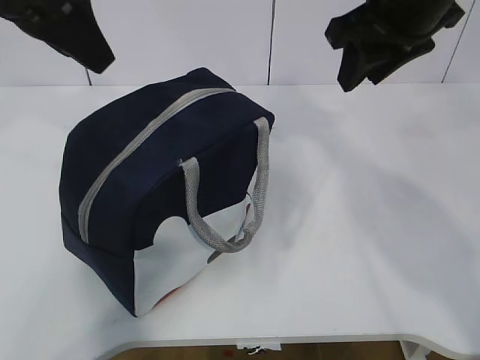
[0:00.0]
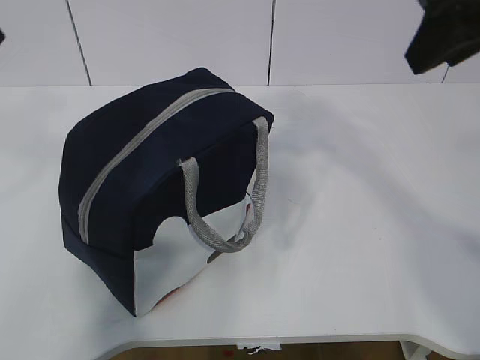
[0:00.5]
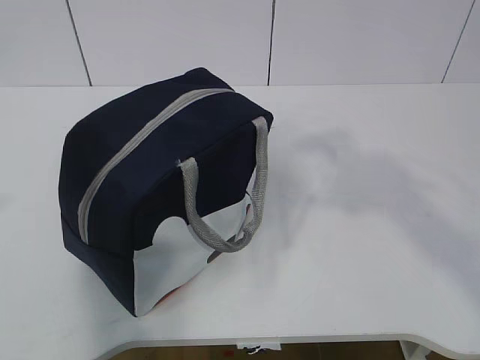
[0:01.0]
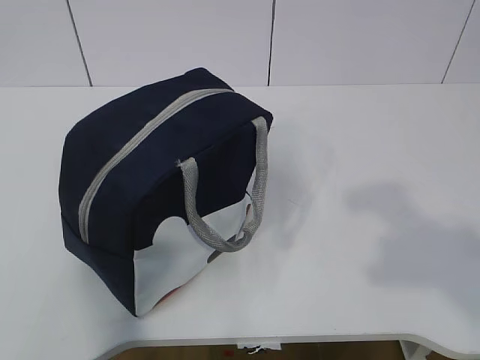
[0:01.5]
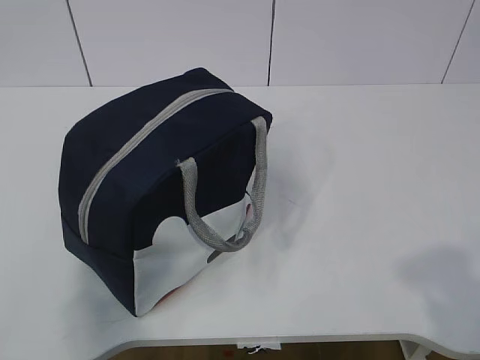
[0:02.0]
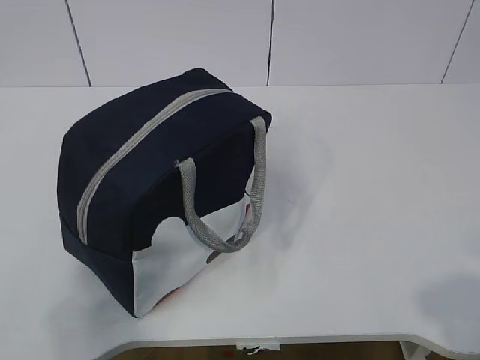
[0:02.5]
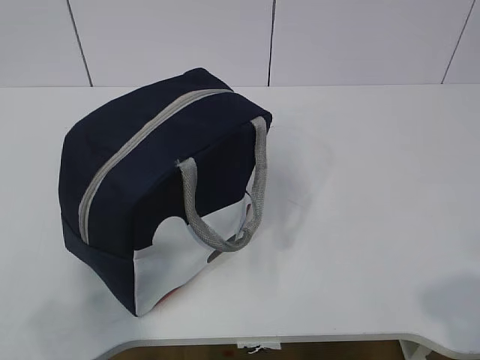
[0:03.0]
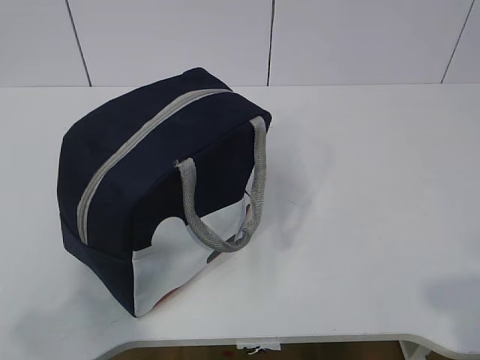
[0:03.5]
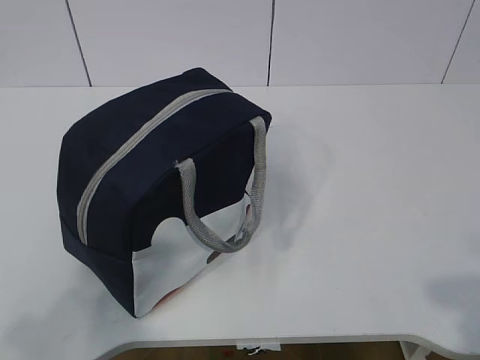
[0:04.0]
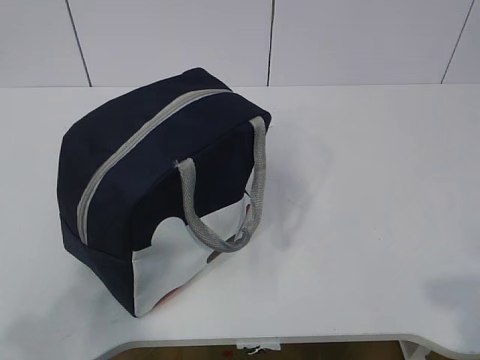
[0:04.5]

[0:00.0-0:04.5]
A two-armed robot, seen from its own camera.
0:00.0 to 0:02.0: Both grippers travel together backward, about 35 cm.

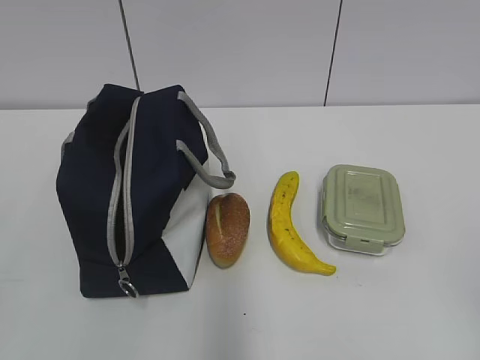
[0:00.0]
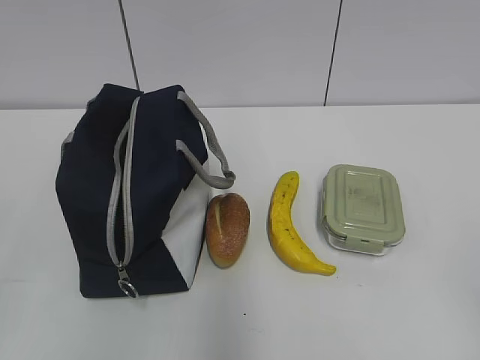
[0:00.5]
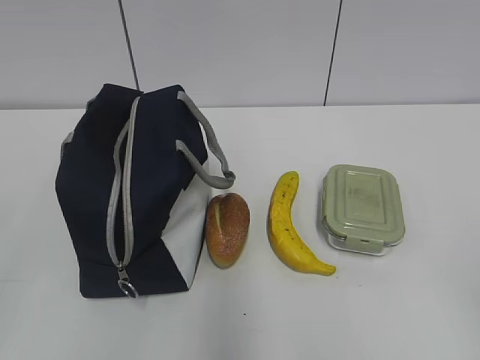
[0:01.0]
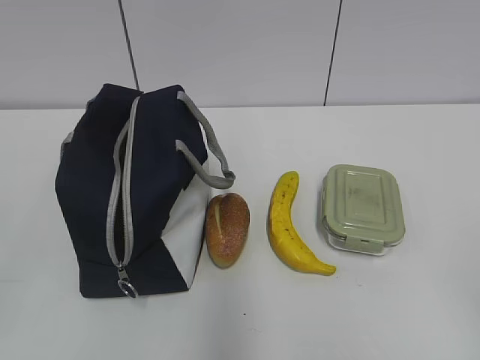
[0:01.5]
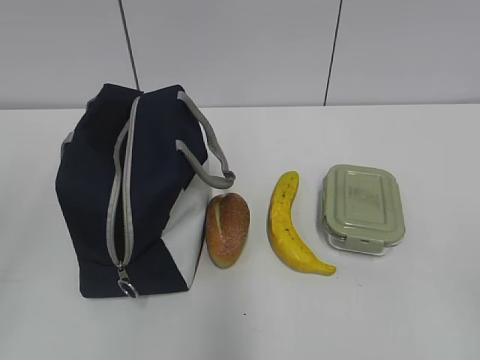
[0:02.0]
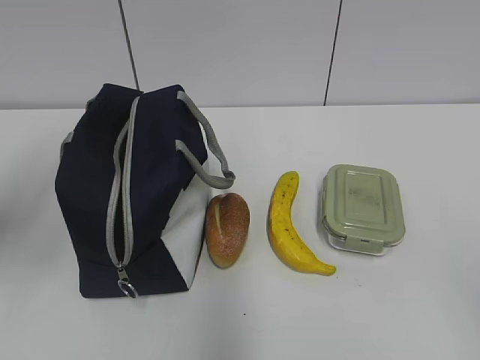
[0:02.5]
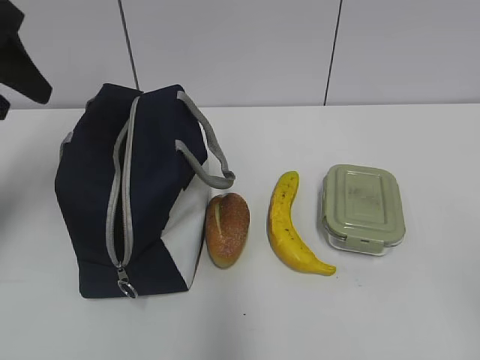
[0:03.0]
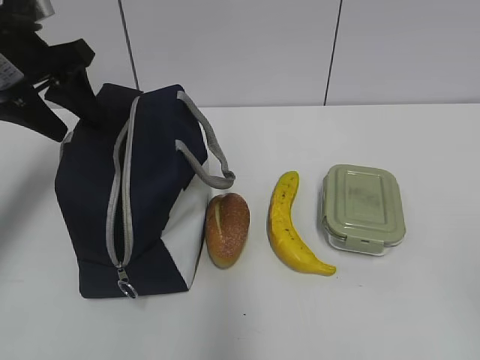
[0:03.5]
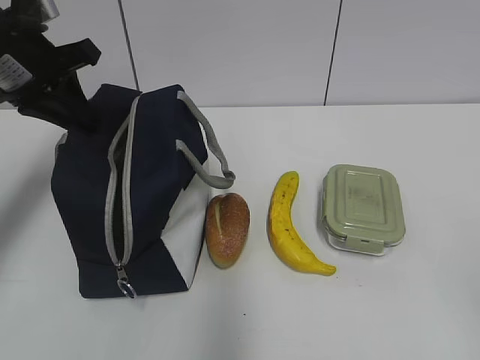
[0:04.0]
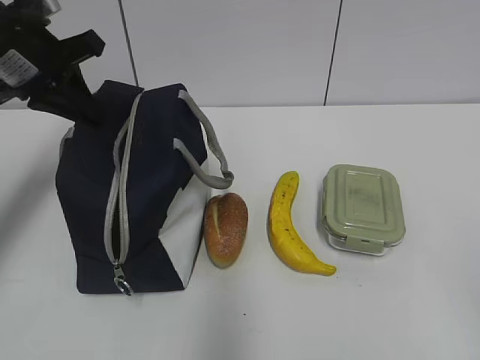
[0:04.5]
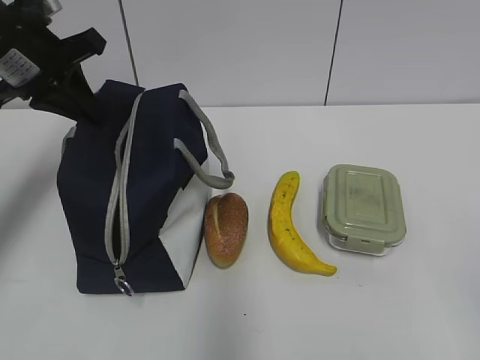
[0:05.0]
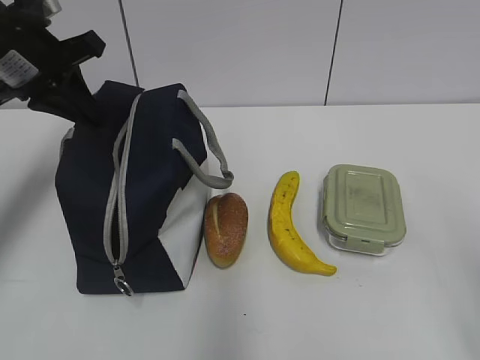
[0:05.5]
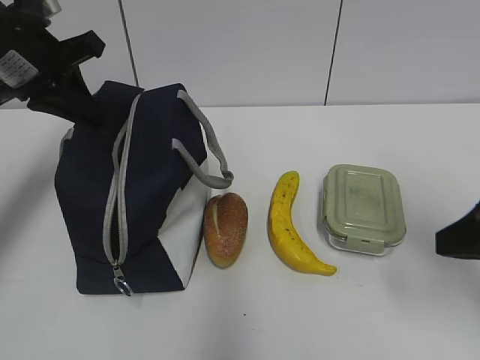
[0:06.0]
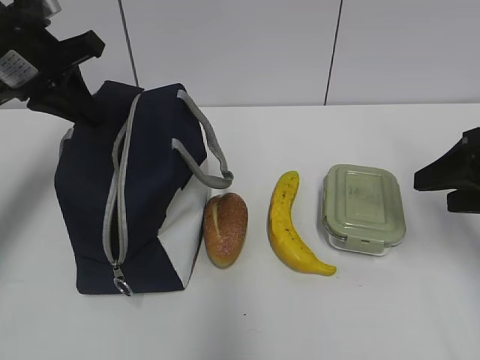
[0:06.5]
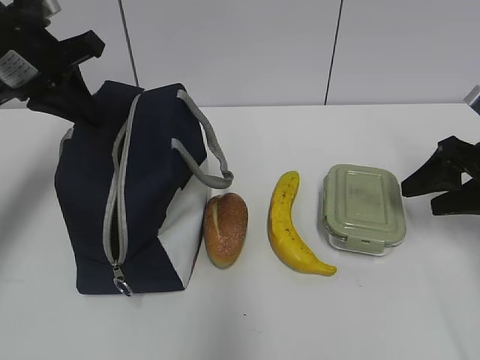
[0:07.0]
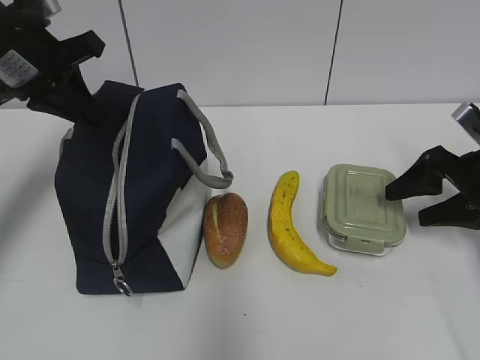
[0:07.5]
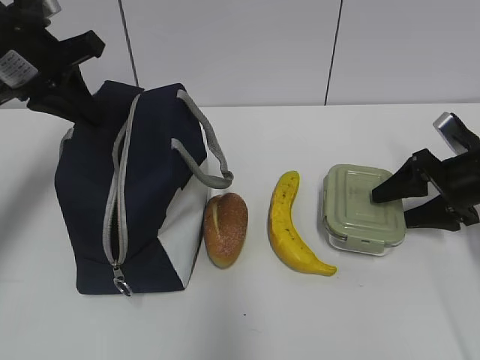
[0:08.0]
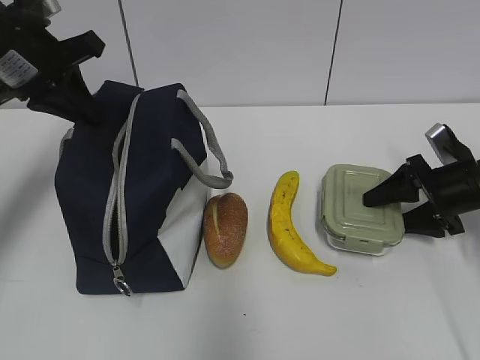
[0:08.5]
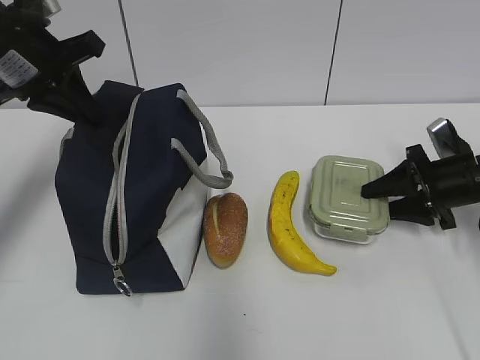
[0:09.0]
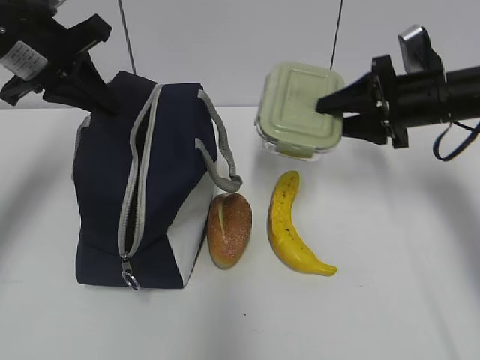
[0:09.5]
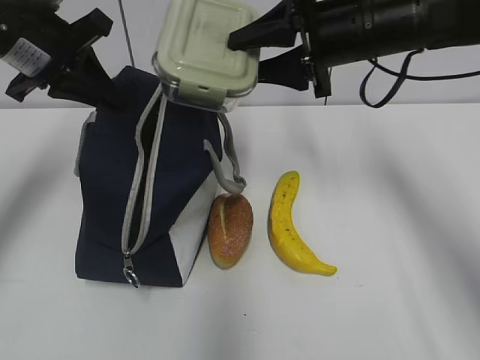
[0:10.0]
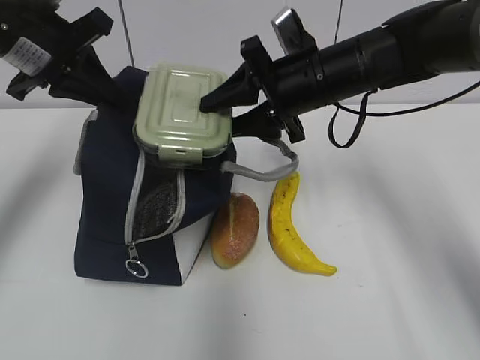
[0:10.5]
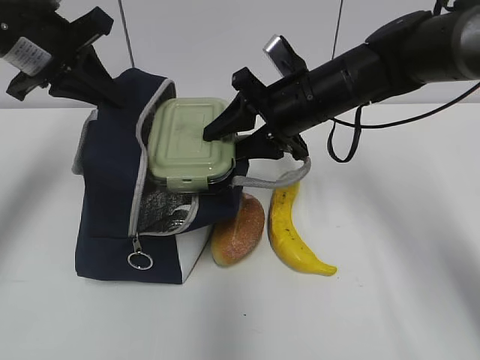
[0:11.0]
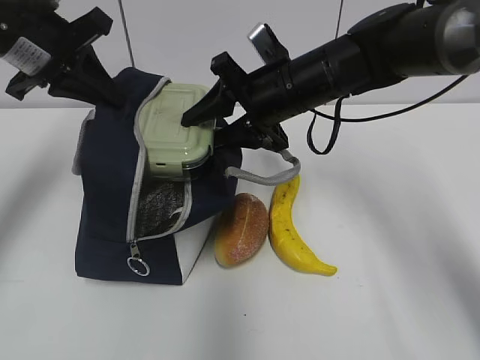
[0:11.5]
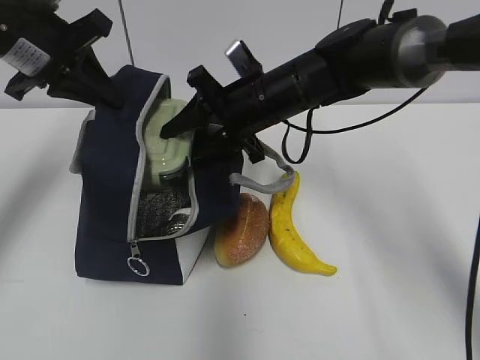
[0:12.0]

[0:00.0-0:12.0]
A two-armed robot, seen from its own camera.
0:02.0 to 0:04.0: The left gripper goes roughly 30 cm forward, and closes.
0:04.0 to 0:06.0: The right gripper moves forward, some 20 cm.
0:06.0 to 0:08.0: The right gripper is displaced forward and downward by some 20 cm.
0:08.0 to 0:10.0: The right gripper shifts some 25 cm to the left and upward, and closes its fingers.
0:10.0 to 0:12.0: The right gripper heads to the left and downward, covering about 10 cm.

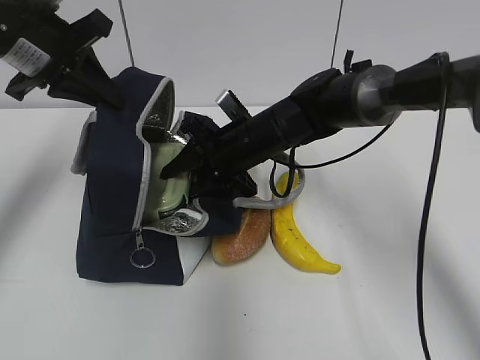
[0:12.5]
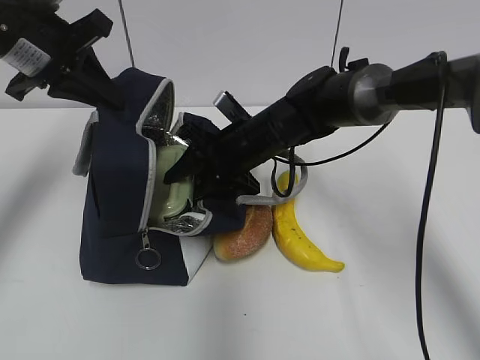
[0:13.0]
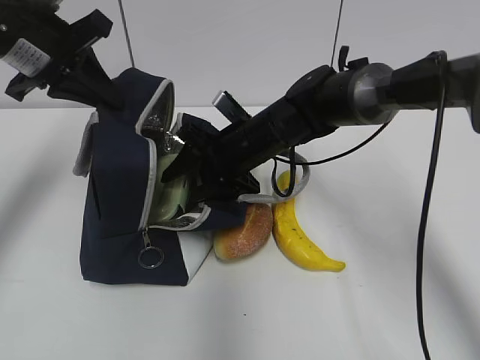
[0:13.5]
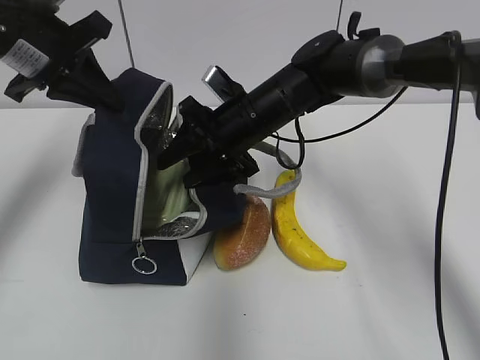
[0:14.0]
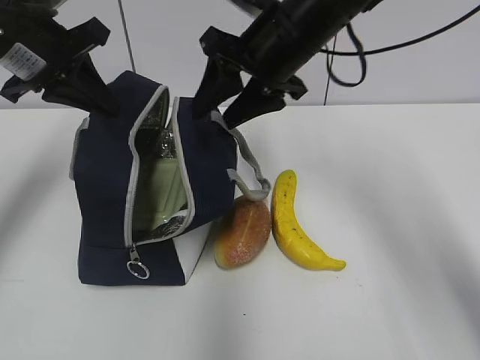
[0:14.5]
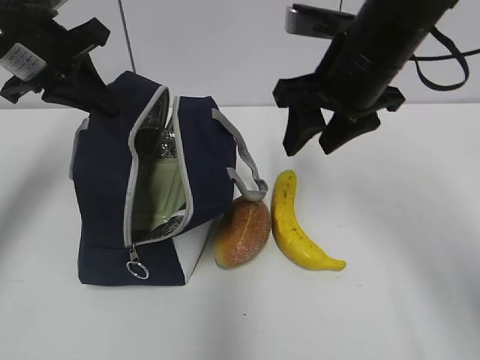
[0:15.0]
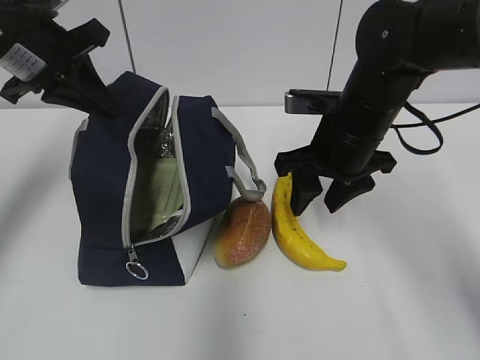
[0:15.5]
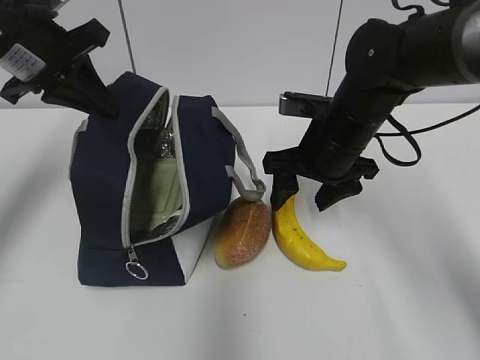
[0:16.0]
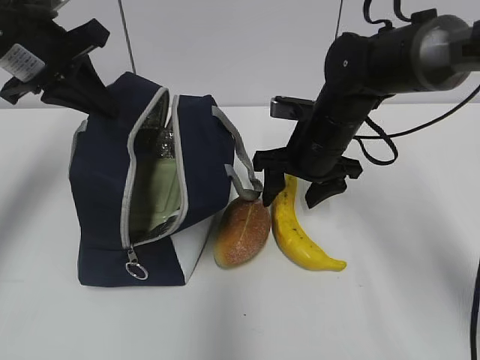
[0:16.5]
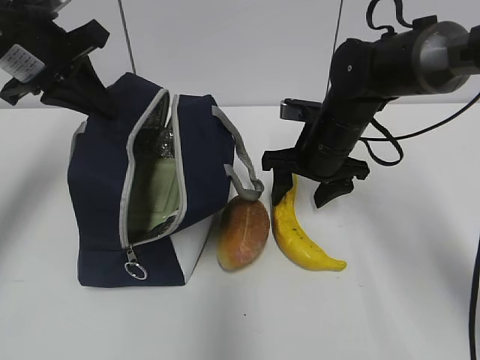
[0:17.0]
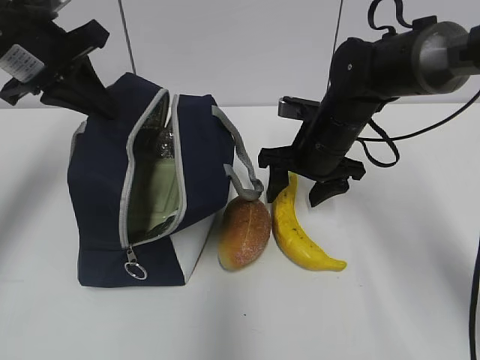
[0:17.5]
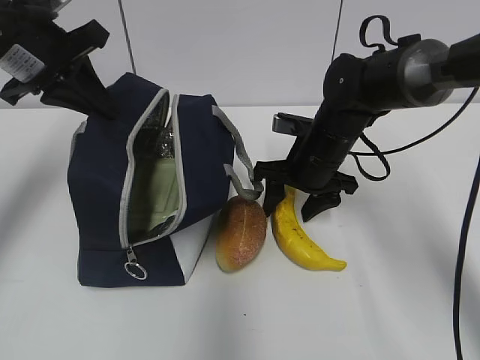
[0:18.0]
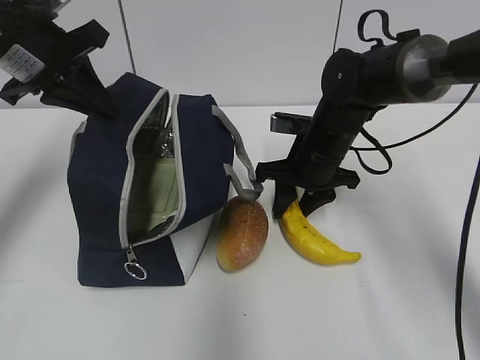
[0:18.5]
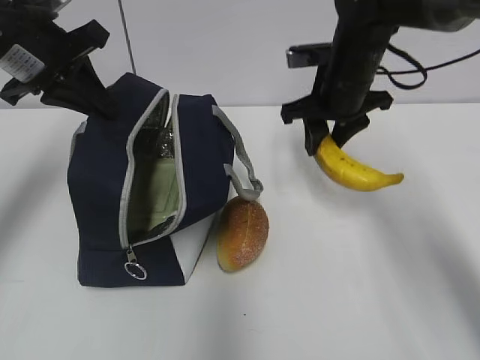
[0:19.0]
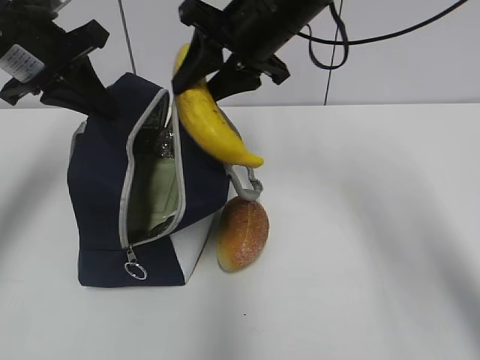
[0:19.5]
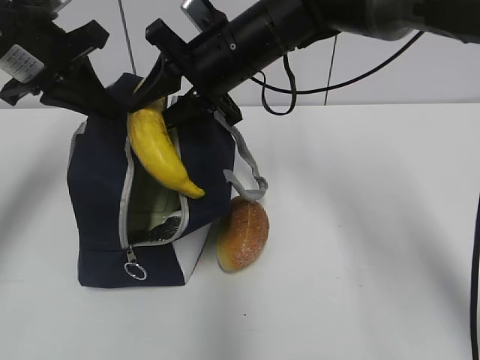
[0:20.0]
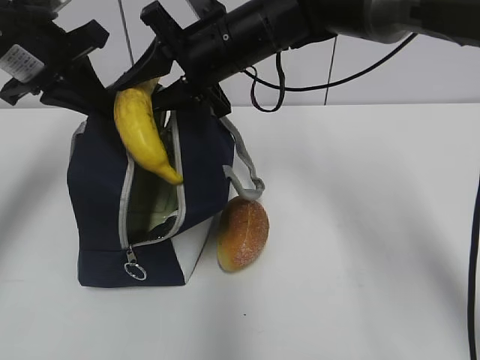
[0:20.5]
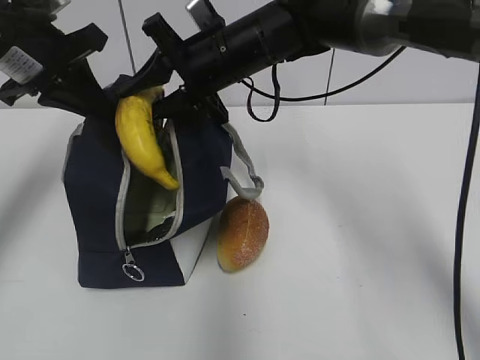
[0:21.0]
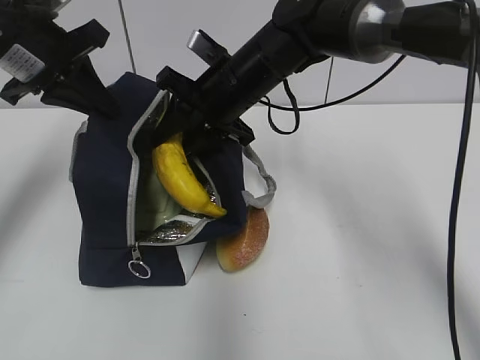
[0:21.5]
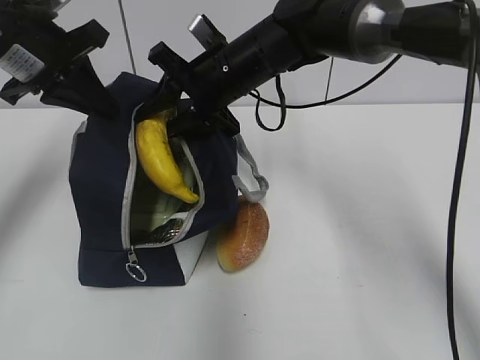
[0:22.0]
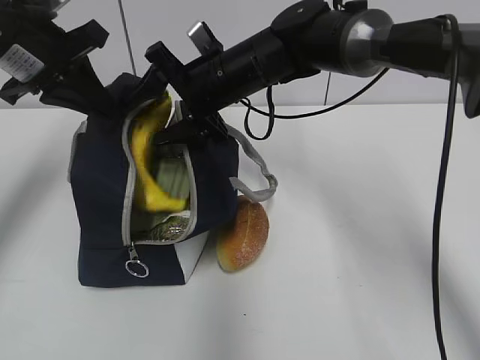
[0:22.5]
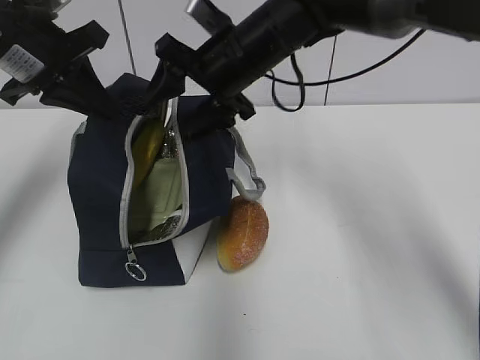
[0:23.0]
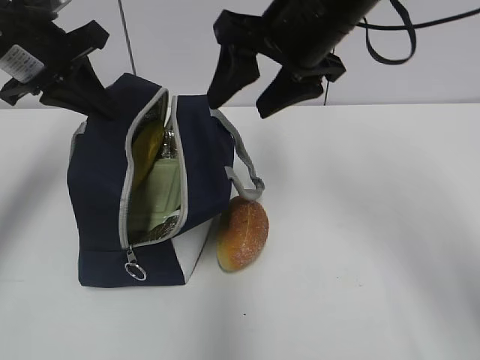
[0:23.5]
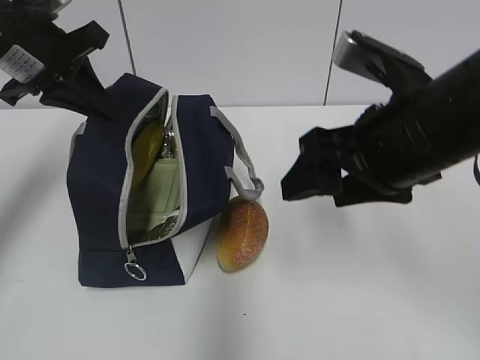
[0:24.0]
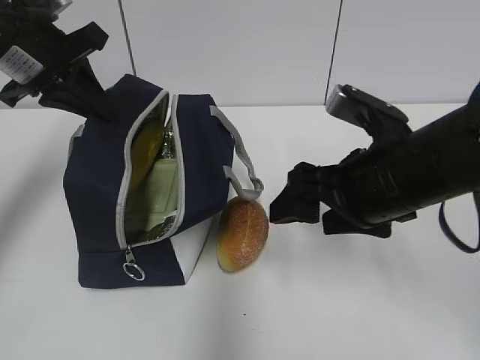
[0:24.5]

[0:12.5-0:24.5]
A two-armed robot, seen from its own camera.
0:12.5 to 0:14.5: The right gripper moves upward, about 15 cm.
0:14.5 to 0:16.5: The right gripper moves downward, some 10 cm.
0:16.5 to 0:18.5: The right gripper closes.
0:18.5 to 0:20.5: The right gripper heads upward and to the left, covering some 15 cm.
0:20.5 to 0:22.5: The right gripper opens up.
0:22.5 to 0:24.5: The right gripper is displaced backward and to the right by approximately 20 cm.
